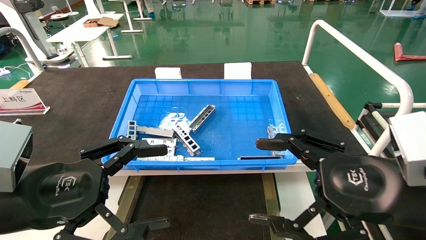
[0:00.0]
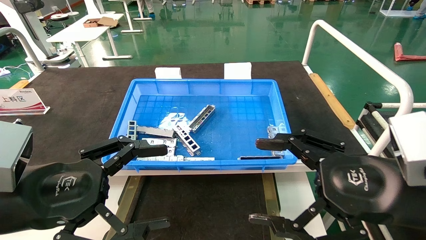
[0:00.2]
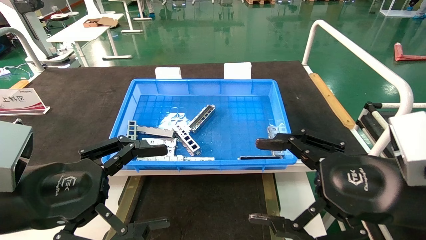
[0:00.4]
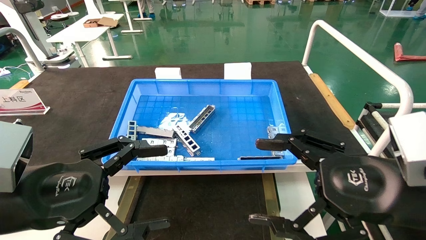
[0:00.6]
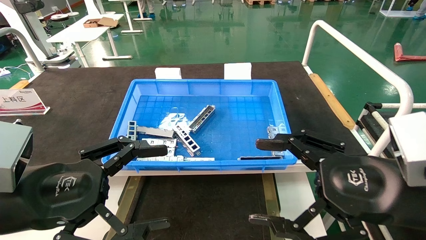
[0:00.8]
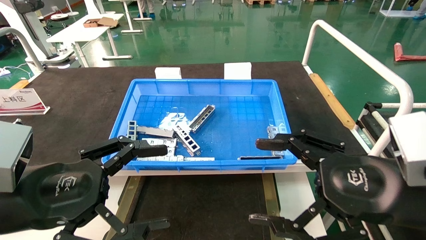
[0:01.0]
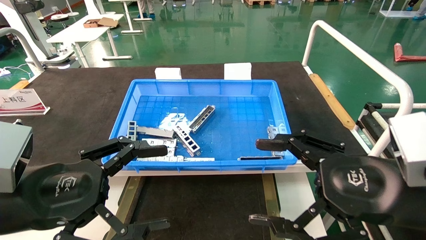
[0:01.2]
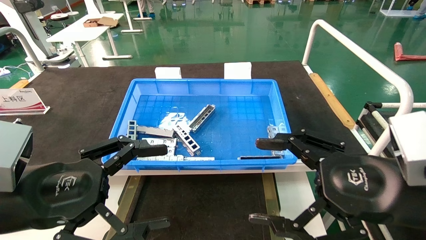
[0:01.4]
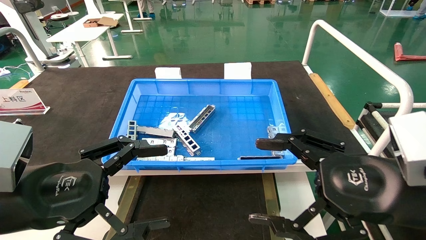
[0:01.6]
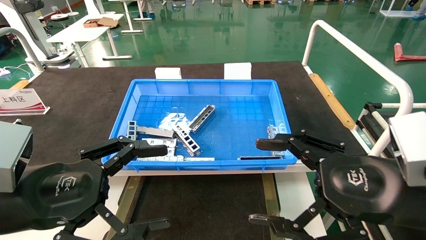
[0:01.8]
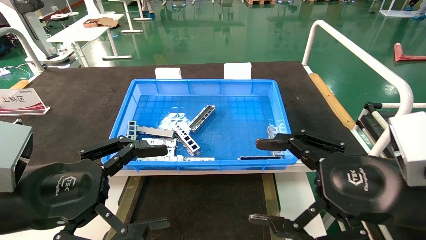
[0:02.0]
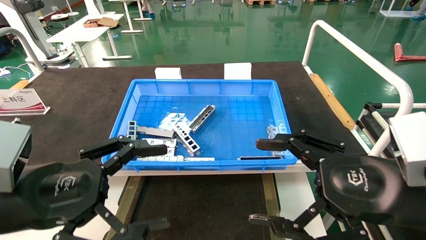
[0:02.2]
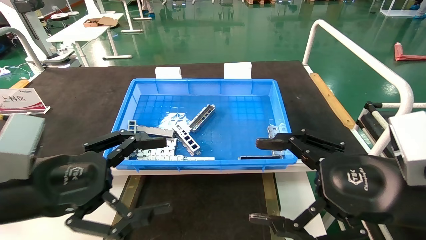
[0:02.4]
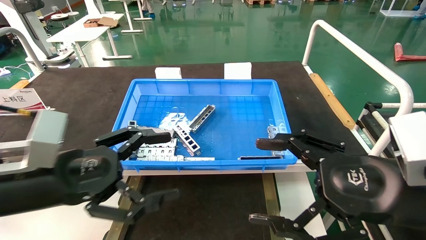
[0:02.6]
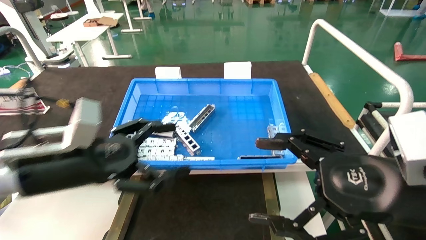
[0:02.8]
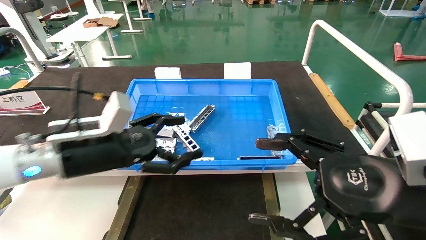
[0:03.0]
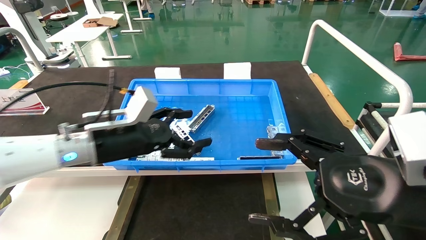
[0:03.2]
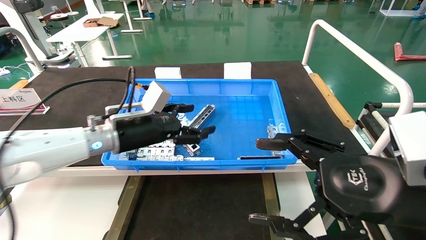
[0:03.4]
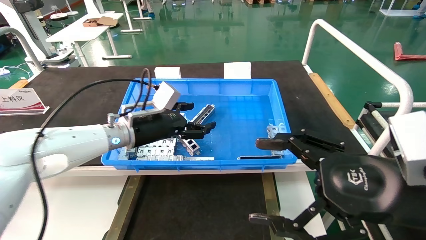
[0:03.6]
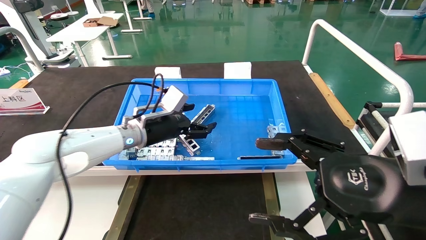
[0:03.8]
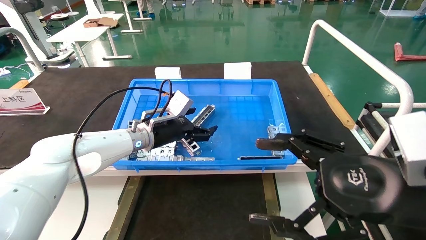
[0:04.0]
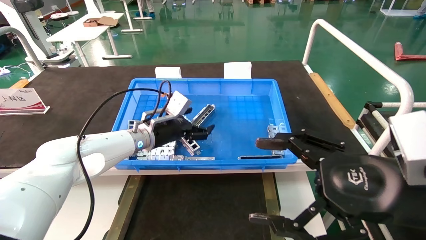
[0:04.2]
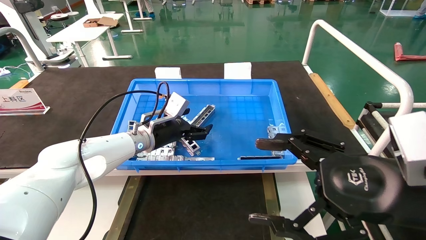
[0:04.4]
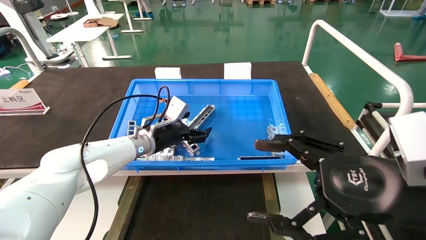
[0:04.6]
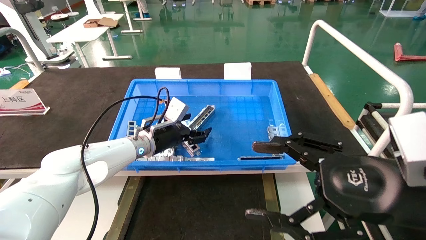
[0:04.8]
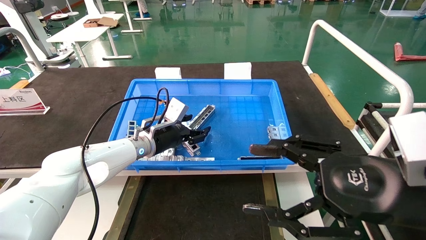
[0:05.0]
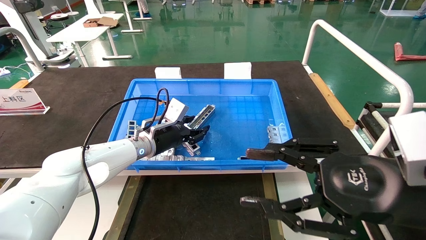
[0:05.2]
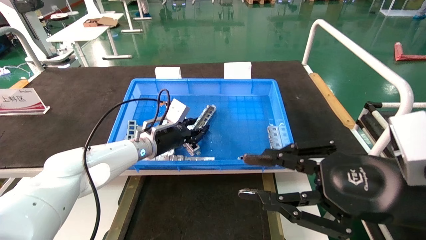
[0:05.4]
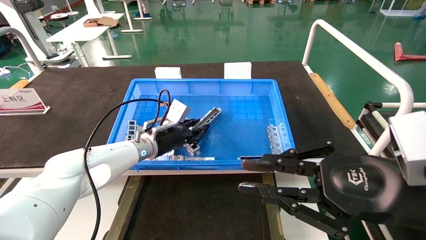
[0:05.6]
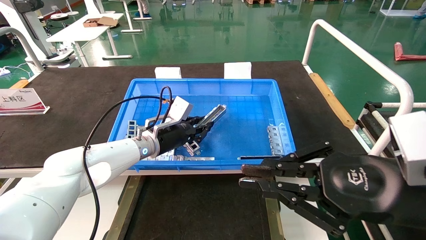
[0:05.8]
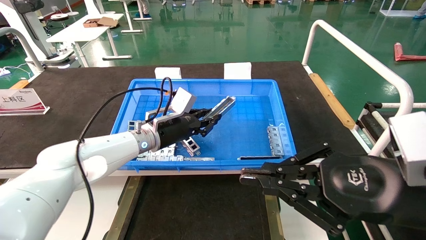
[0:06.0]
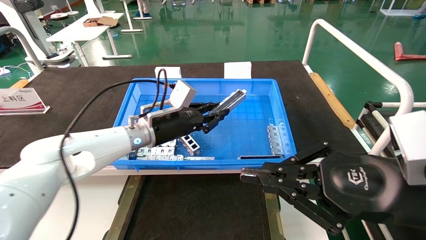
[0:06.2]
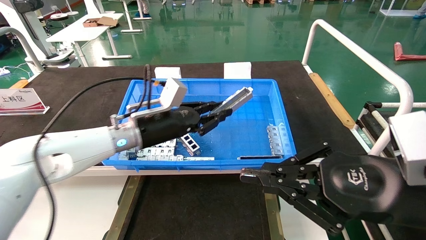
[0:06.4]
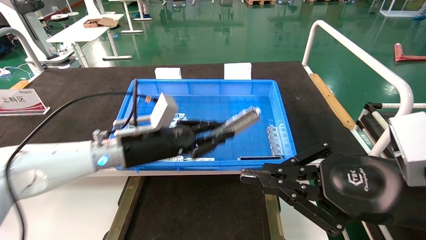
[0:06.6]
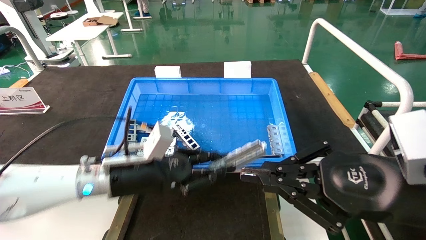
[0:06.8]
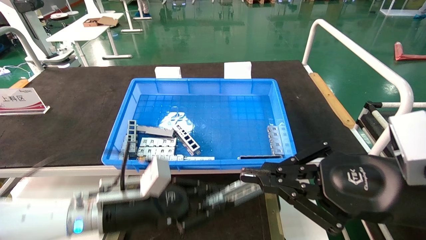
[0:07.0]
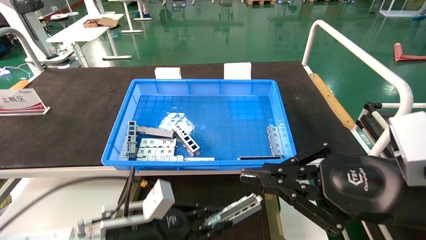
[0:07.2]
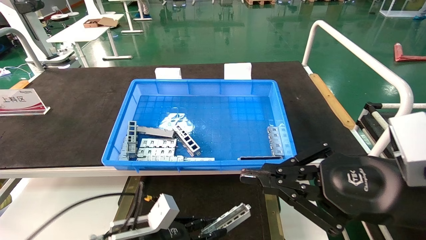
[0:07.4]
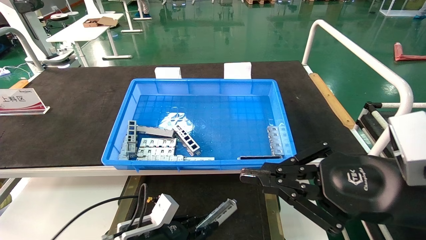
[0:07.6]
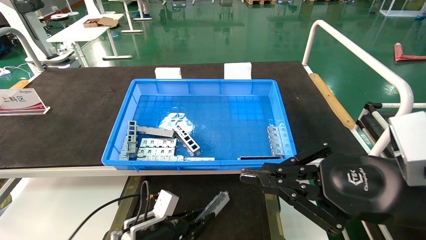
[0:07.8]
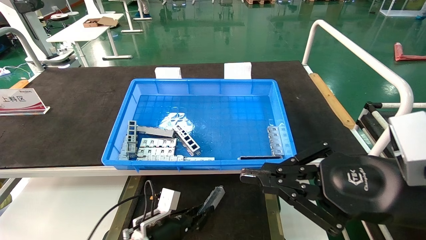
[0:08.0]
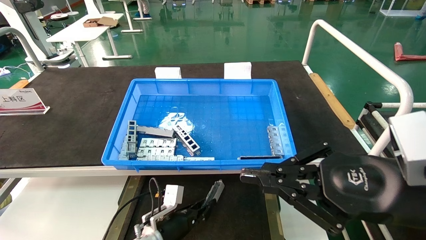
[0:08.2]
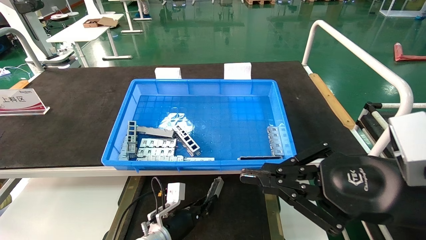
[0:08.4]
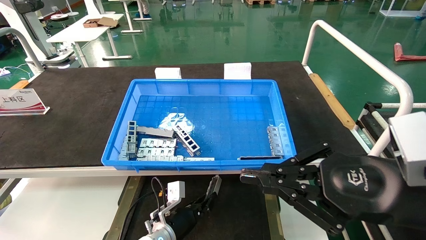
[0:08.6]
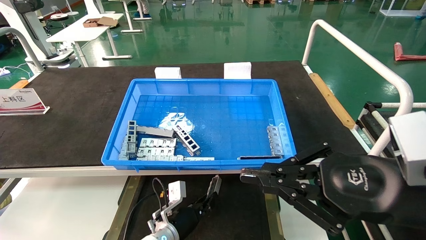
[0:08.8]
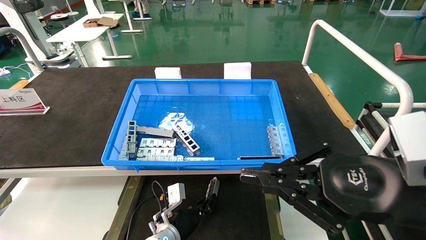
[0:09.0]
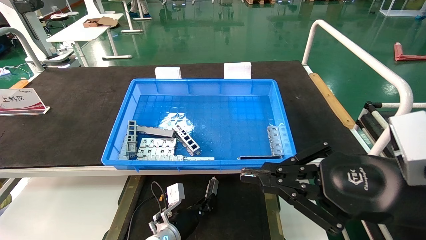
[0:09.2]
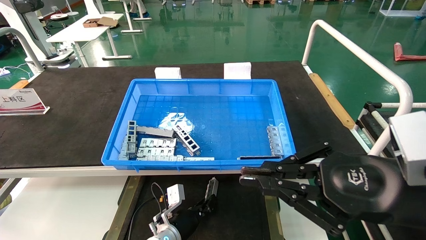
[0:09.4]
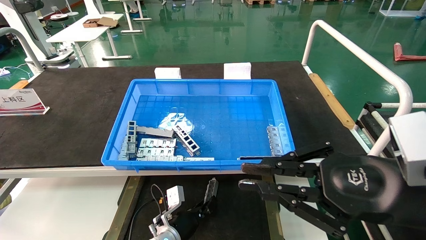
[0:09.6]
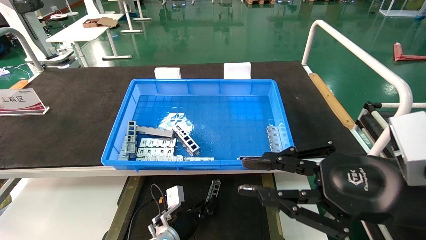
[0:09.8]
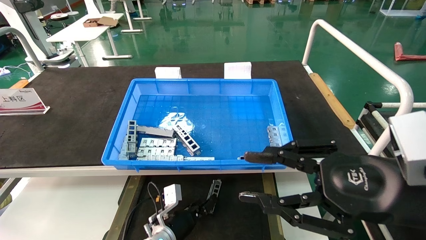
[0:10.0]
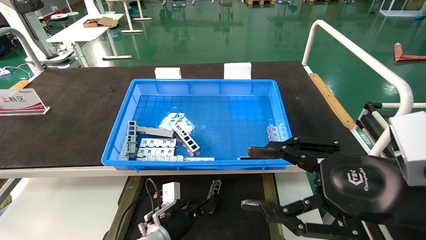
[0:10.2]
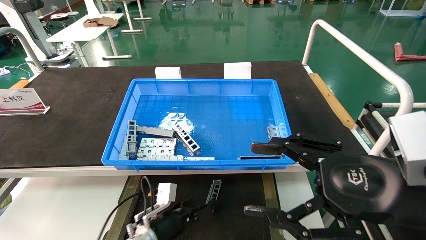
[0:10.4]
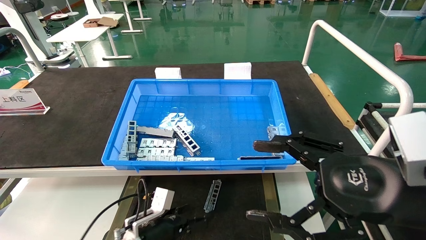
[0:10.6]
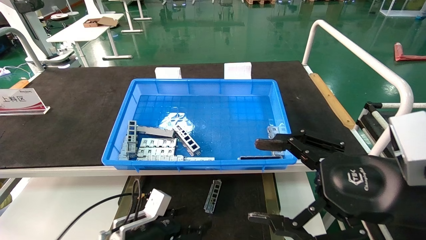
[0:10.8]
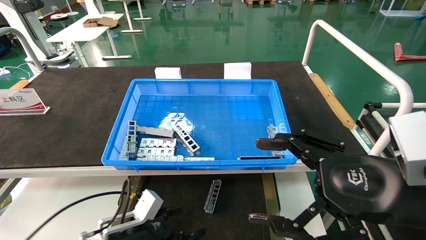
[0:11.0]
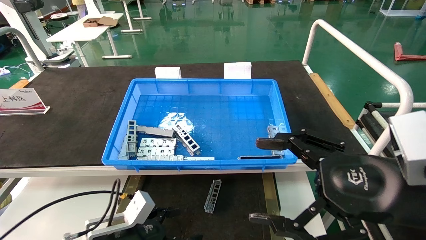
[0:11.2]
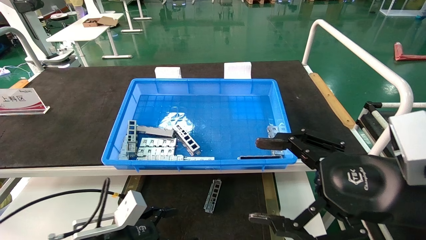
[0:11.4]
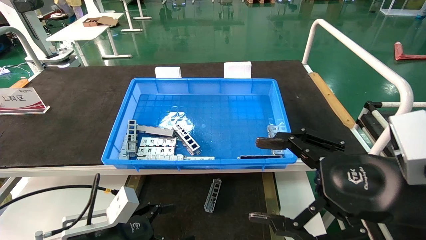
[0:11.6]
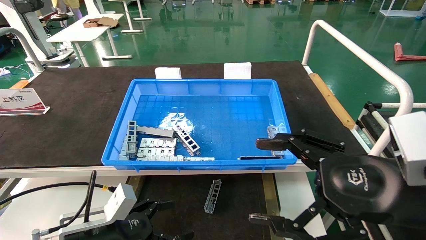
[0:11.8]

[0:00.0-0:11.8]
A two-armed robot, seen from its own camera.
Task of the whole recording: Grasp the part with one hand and place it on the black container.
Step, 0:02.4 to 0:05.8: Pick up the front USB bracket from the feeding area.
Step, 0:06.0 to 0:10.0: Place the front USB bracket into the box.
0:00.0 to 0:01.4: Both grippers stay about where they are.
0:01.4 to 0:03.0: The left gripper goes approximately 15 cm forward.
0:03.0 to 0:04.4: The left gripper is displaced forward by roughly 15 cm.
0:04.4 to 0:06.0: The left gripper closes its fingers, while the right gripper closes up.
0:06.0 to 0:07.4: The left gripper shifts roughly 25 cm downward and backward.
0:07.4 to 0:08.8: The left gripper shifts approximately 15 cm forward, downward and to the right.
0:08.8 to 0:10.4: The left gripper ends up about 5 cm from where it was, and opens, while the right gripper opens its fingers.
0:10.4 to 0:11.8: The left gripper goes approximately 15 cm backward, upward and to the left.
